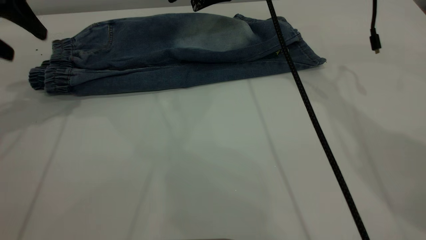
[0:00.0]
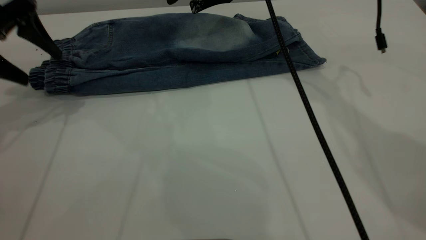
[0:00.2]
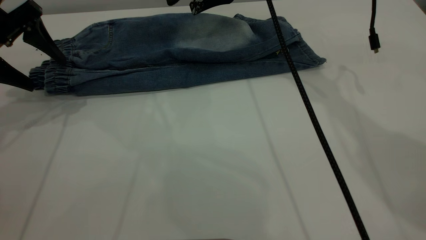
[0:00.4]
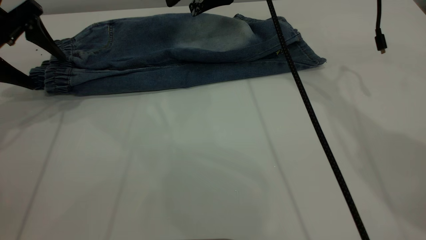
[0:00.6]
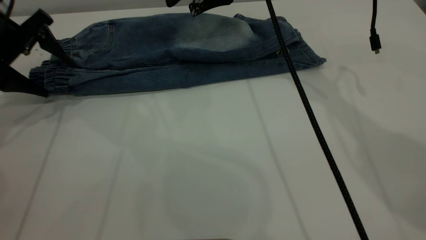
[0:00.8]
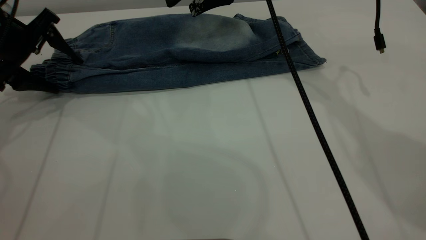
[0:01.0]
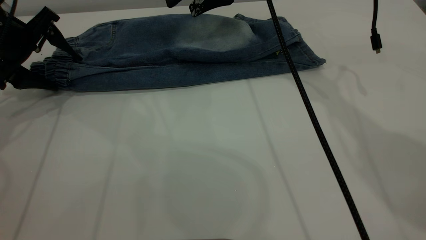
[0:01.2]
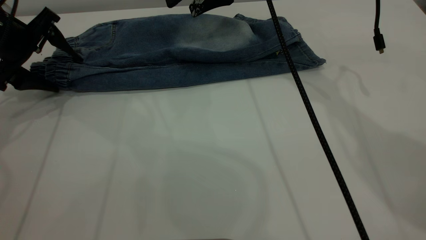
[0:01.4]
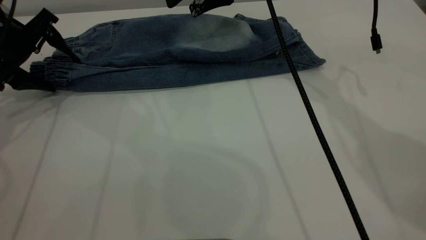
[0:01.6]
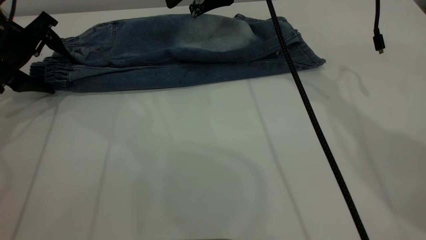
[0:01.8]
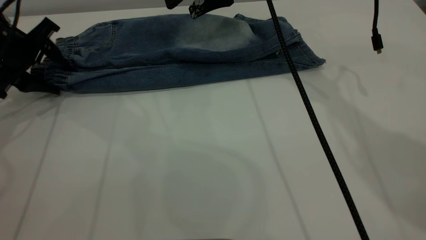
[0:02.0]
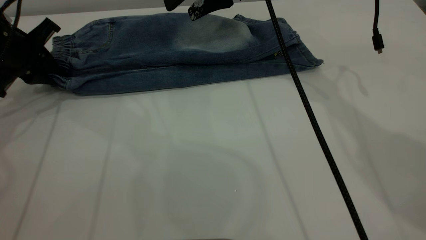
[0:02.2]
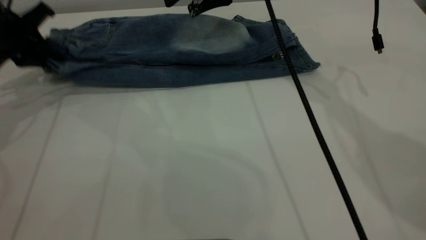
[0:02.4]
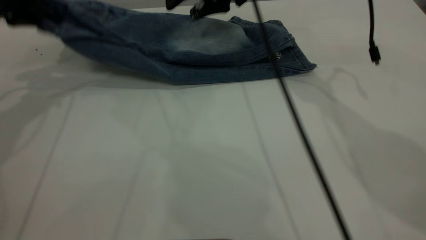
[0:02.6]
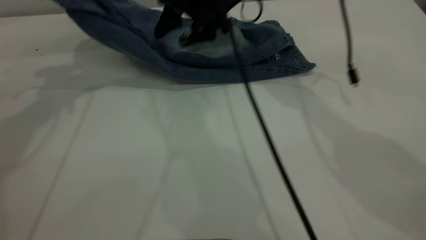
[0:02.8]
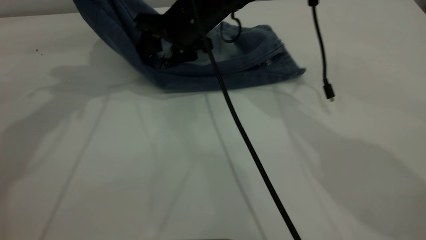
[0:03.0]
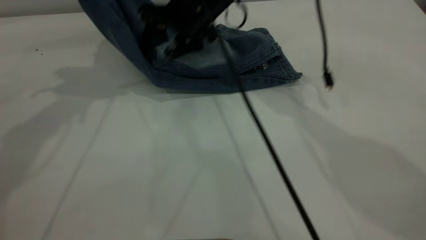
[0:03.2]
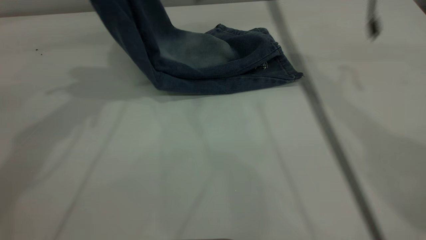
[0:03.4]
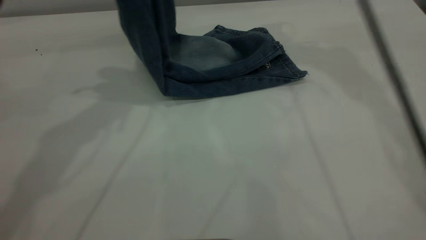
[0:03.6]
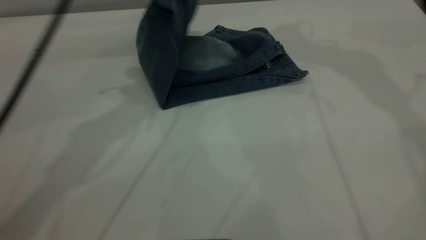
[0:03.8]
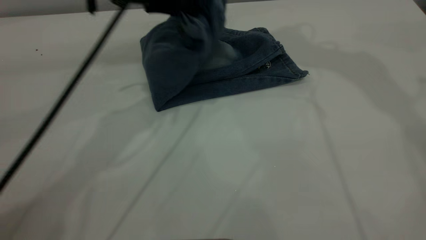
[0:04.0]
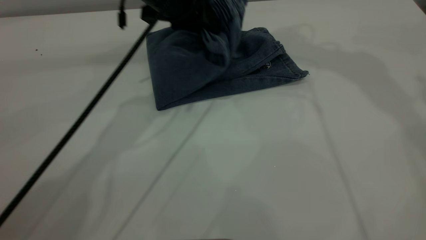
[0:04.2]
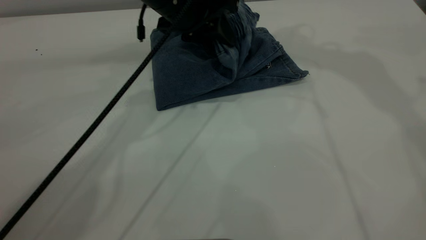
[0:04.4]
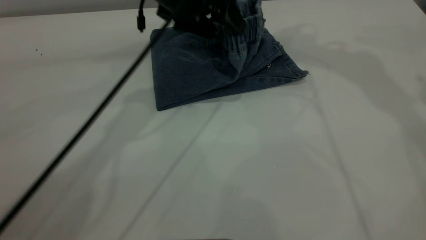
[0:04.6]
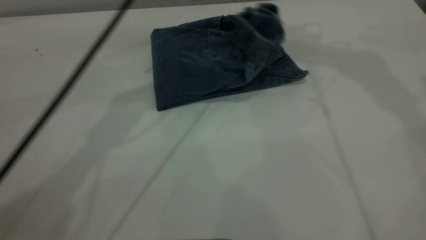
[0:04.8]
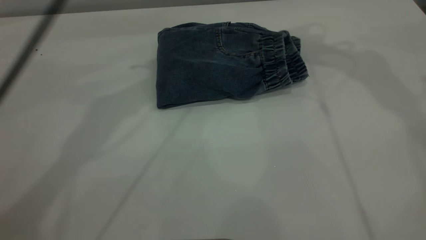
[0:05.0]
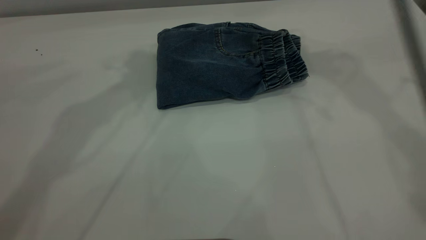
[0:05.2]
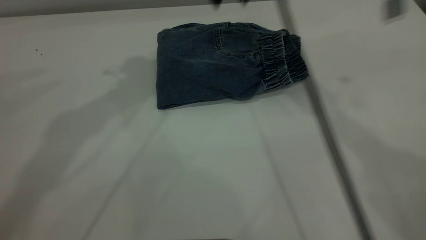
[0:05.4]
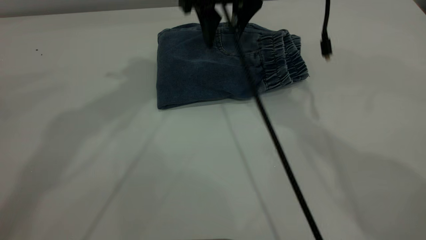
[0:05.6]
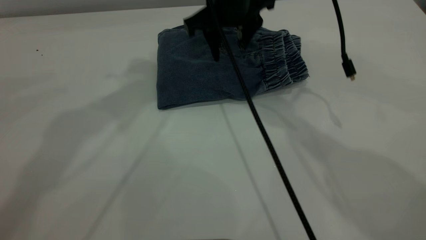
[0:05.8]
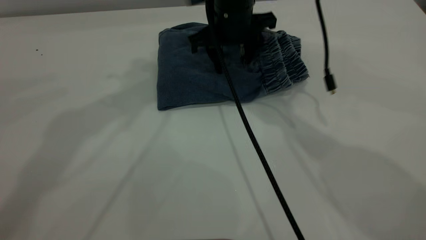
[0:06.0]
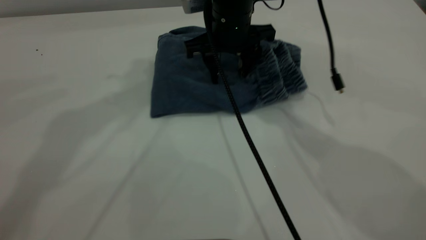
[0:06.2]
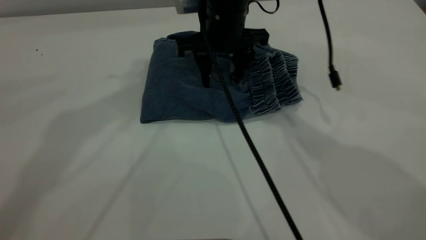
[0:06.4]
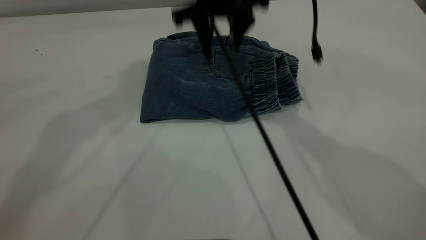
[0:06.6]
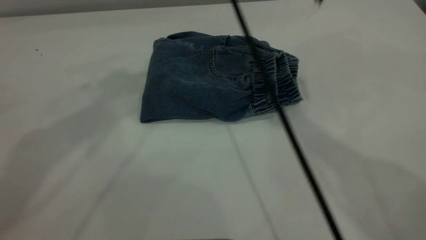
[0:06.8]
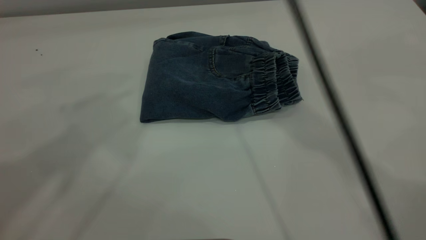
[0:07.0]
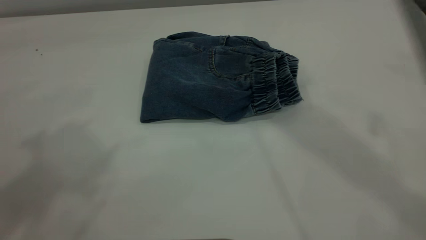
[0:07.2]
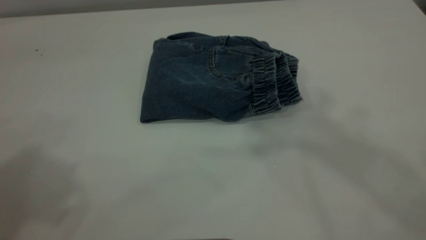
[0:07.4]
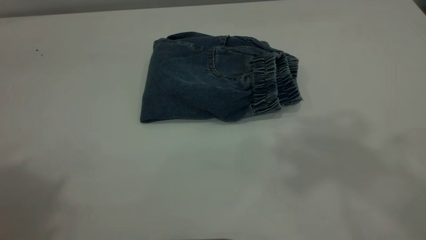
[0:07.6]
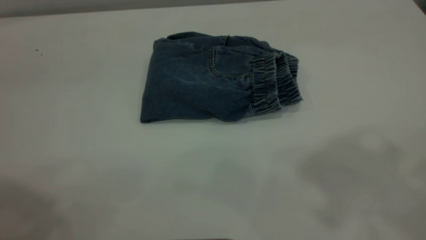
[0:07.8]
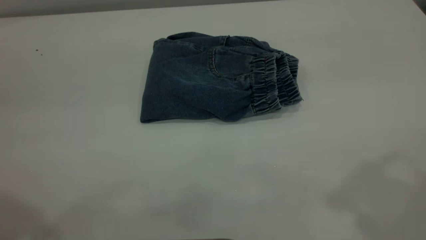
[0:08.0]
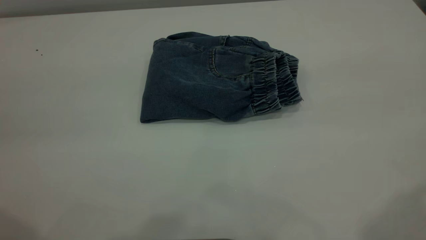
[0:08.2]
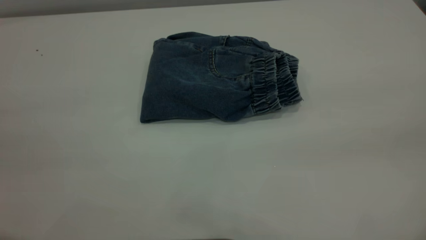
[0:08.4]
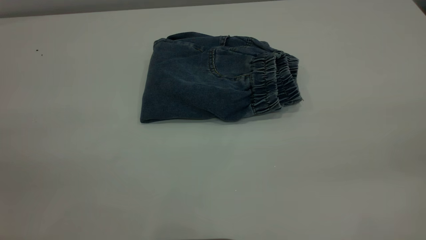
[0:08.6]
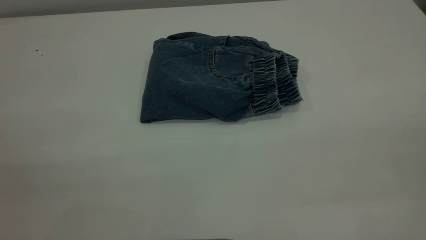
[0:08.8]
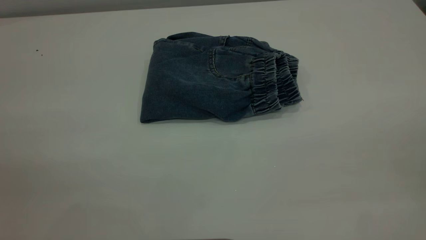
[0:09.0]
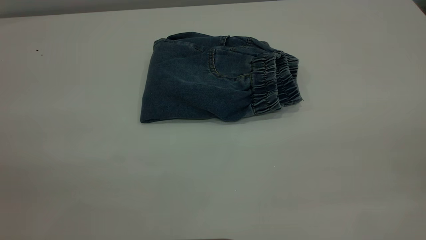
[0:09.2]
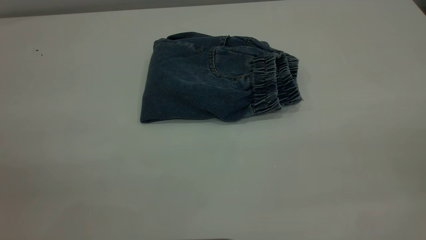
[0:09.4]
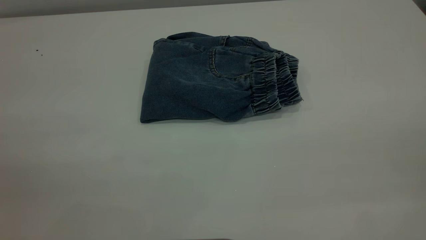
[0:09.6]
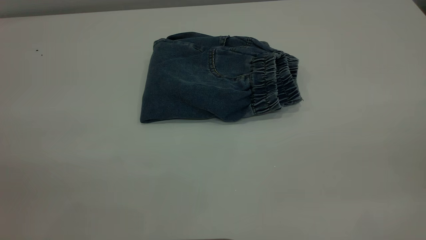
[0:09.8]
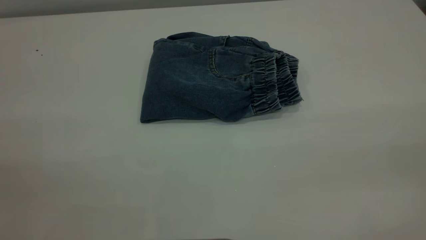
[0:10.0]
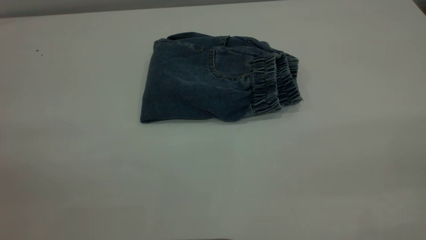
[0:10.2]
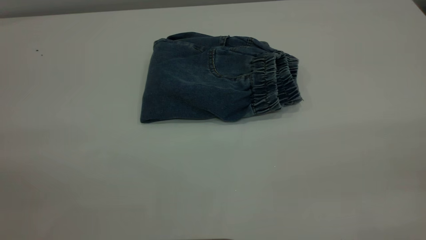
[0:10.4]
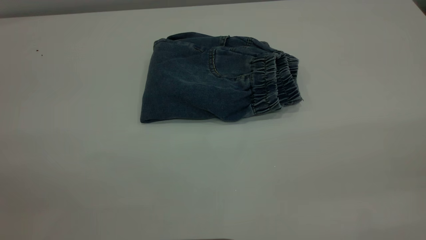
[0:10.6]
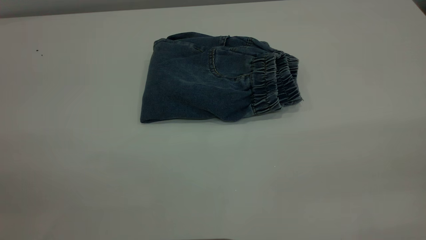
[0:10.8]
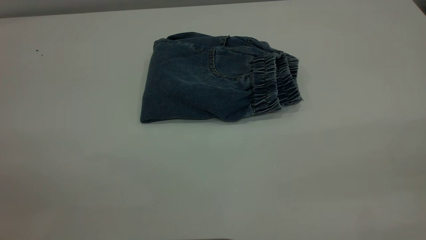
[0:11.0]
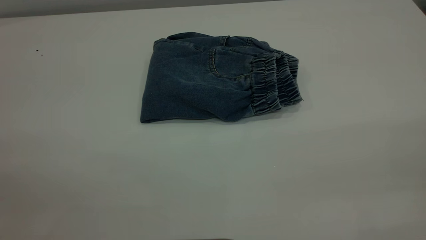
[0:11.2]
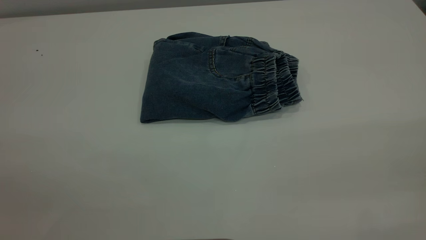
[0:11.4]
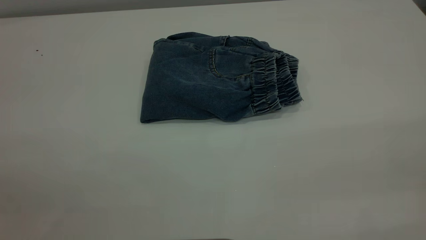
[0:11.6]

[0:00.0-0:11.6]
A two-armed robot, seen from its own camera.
Step, 0:00.0 to 0:05.0: Fold the pants from left to right.
0:00.0 to 0:01.4: The left gripper moves downward, about 10 cm.
0:01.4 to 0:02.8: The right gripper shifts approximately 5 cm downward. The left gripper heads upward and to the right, covering about 15 cm, and closes.
0:02.8 to 0:04.4: The left gripper moves to the right and downward, about 25 cm, and opens up. Meanwhile the right gripper shifts approximately 30 cm upward and to the right.
0:04.4 to 0:05.8: The right gripper moves downward and to the left, roughly 25 cm. Meanwhile the left gripper is displaced upward by roughly 20 cm, and opens up.
0:05.8 to 0:07.2: The right gripper goes roughly 35 cm upward. Meanwhile the left gripper heads backward, upward and to the left, covering roughly 20 cm.
0:07.2 to 0:08.8: The right gripper is displaced backward, downward and to the right by roughly 40 cm.

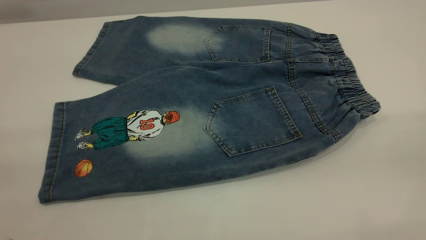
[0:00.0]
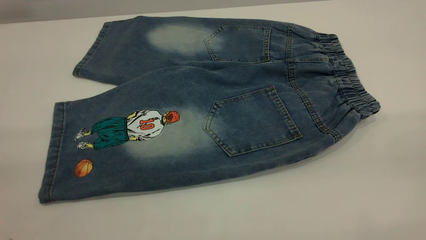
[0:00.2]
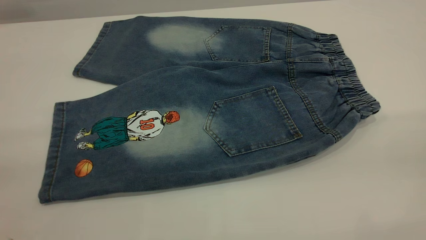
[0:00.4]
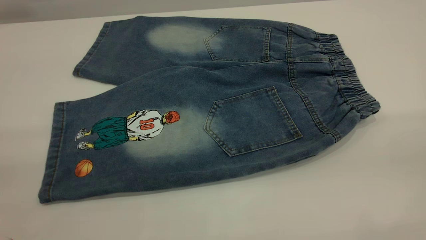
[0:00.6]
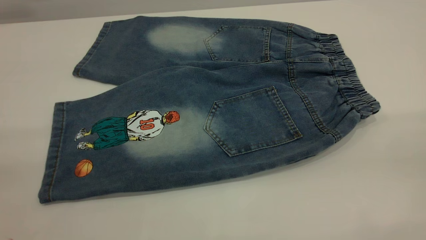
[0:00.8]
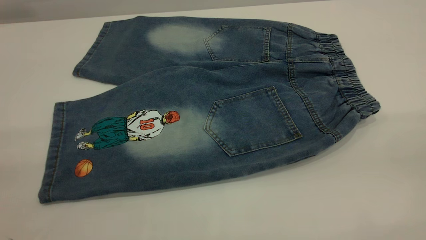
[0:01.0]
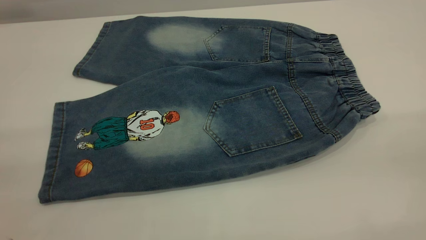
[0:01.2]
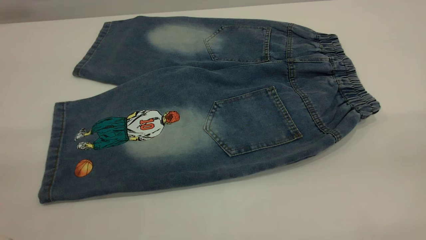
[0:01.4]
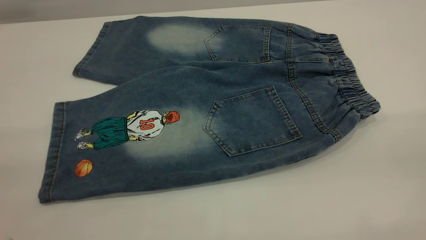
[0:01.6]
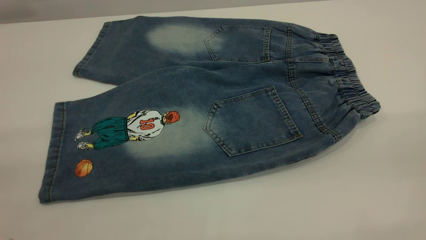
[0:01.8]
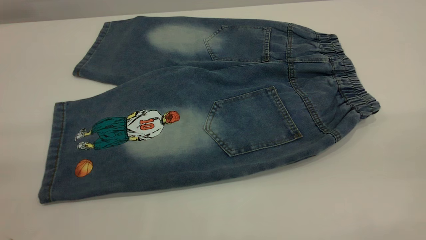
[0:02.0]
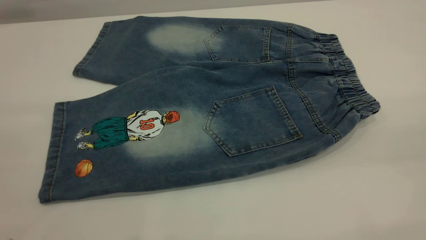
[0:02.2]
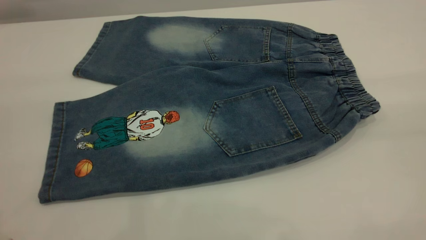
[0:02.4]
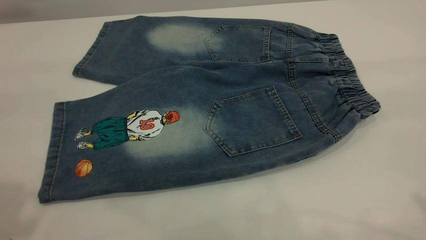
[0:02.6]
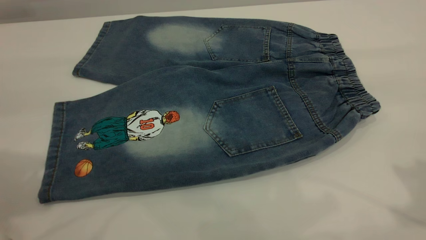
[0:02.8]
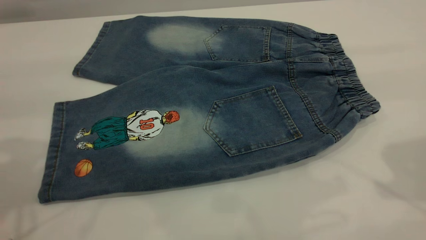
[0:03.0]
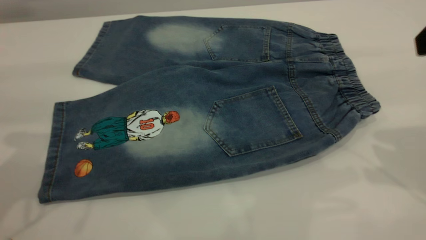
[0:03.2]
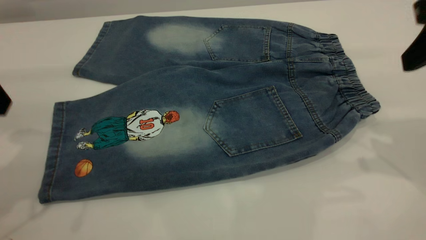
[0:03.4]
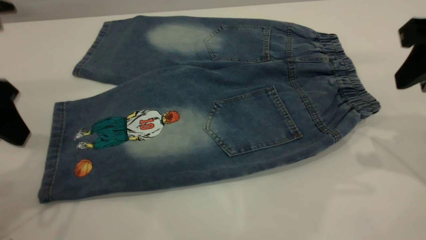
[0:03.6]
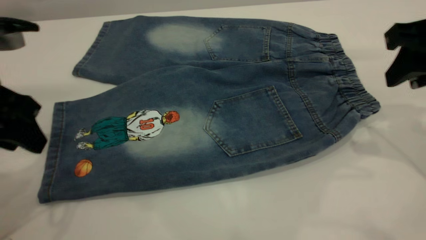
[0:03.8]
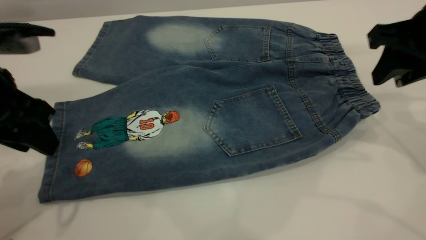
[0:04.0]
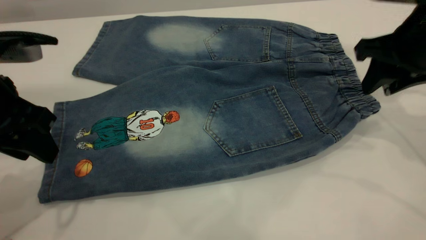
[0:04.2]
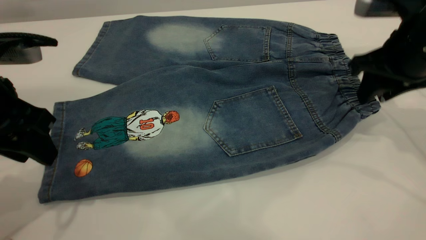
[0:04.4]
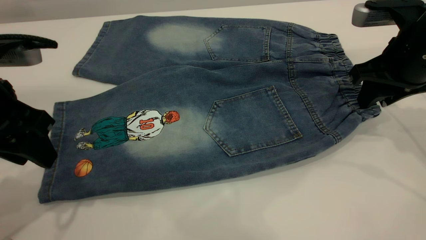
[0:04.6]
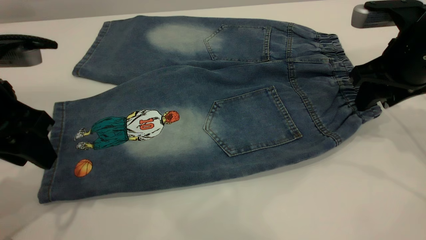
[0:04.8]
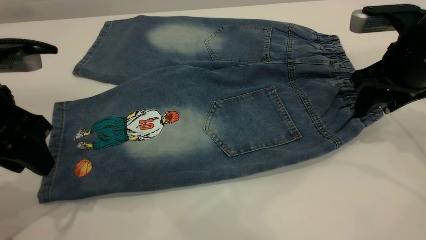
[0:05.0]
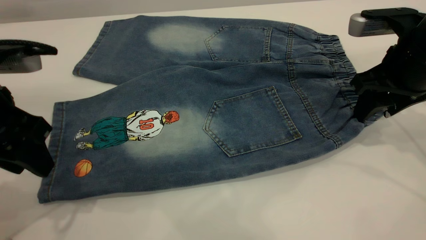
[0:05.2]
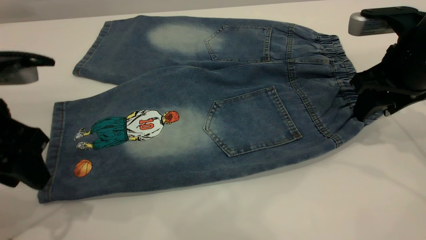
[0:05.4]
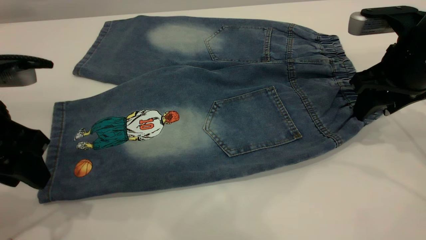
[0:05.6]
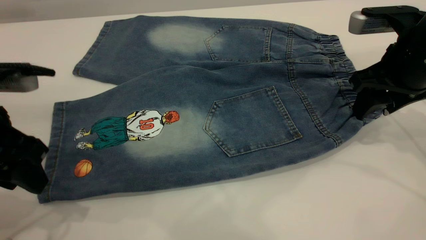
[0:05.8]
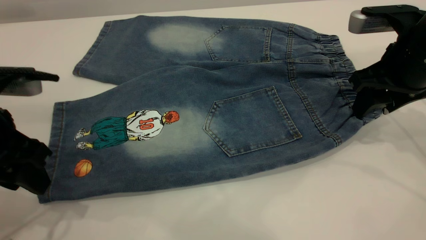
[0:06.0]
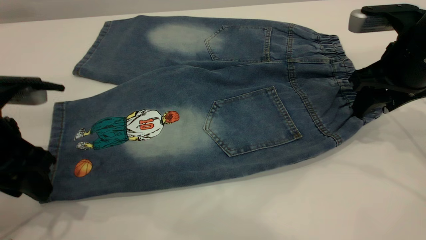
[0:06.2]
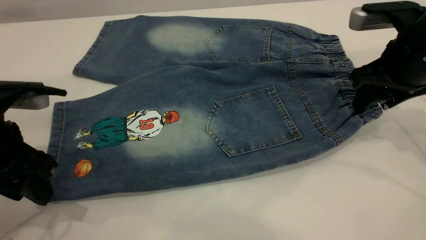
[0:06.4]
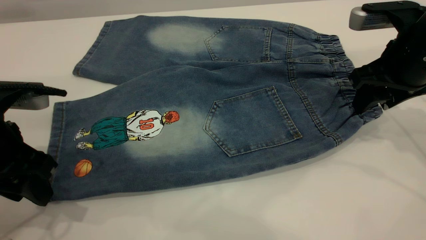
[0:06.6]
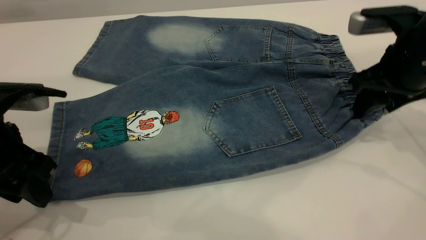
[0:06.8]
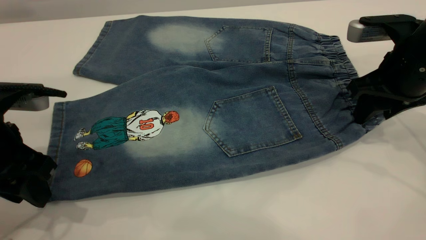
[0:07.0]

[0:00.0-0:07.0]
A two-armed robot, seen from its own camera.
0:00.0 to 0:01.4: The two grippers keep their place.
0:02.8 to 0:04.2: The right gripper is displaced downward and forward by roughly 20 cm; the left gripper travels downward by roughly 15 cm.
0:04.2 to 0:07.0: There are only small adjustments of the grippers.
